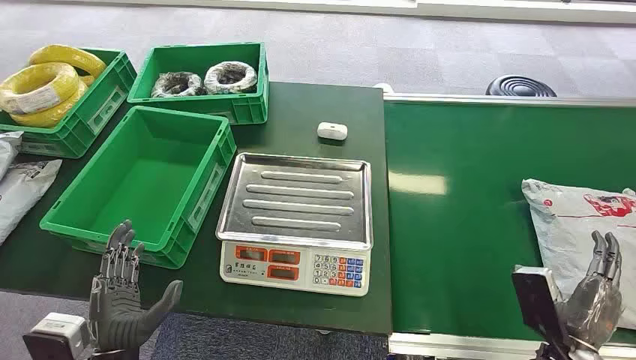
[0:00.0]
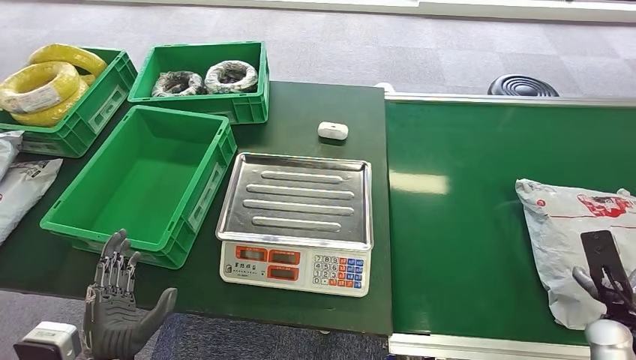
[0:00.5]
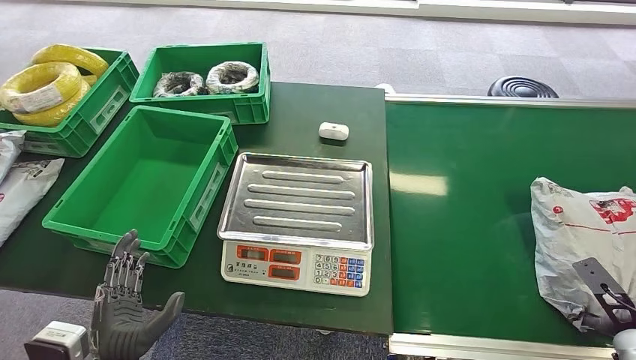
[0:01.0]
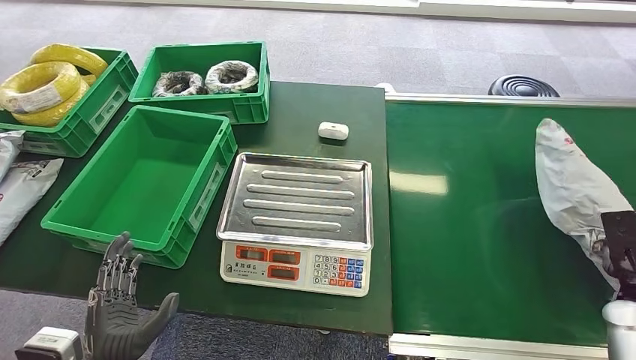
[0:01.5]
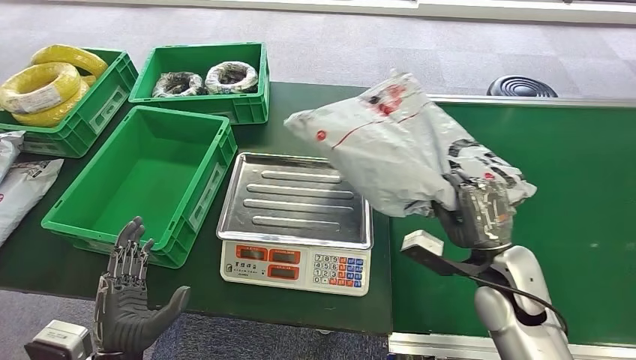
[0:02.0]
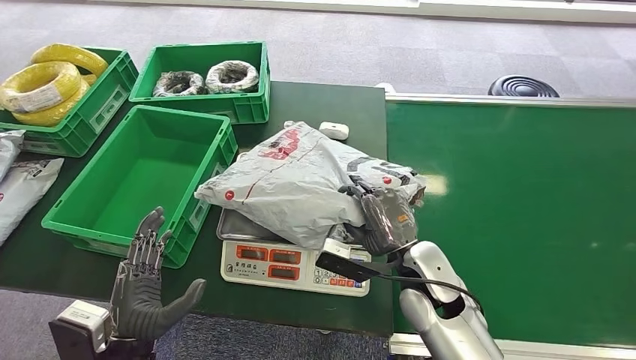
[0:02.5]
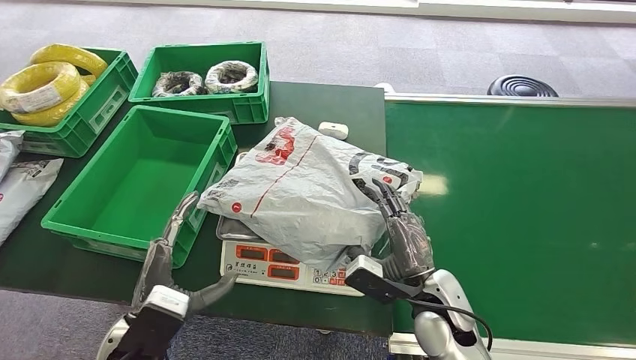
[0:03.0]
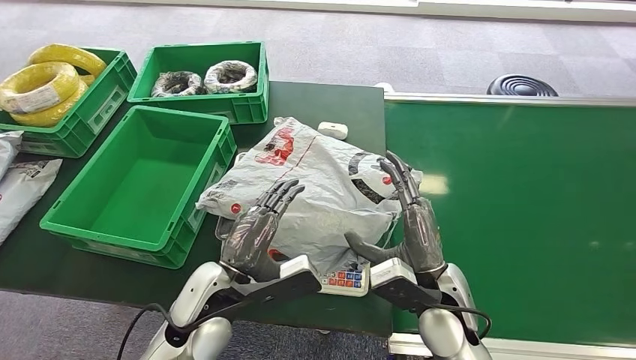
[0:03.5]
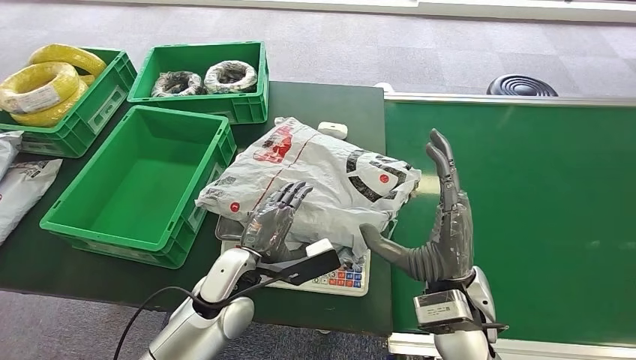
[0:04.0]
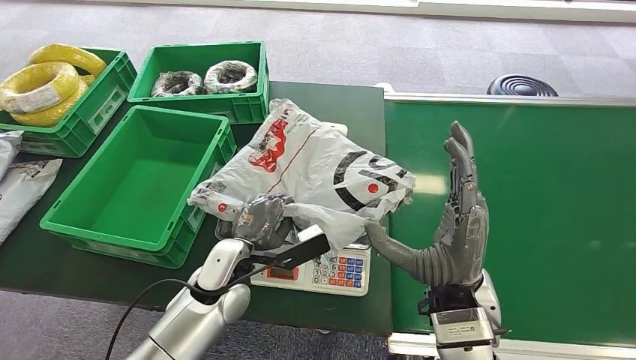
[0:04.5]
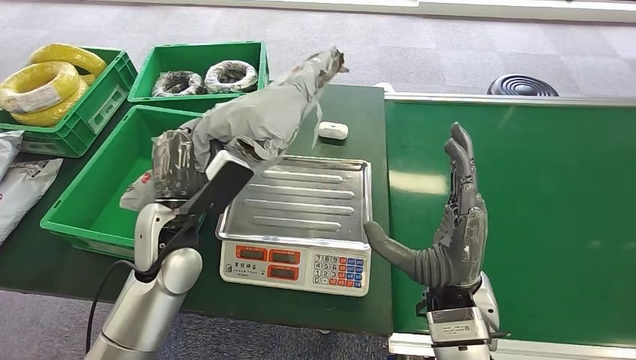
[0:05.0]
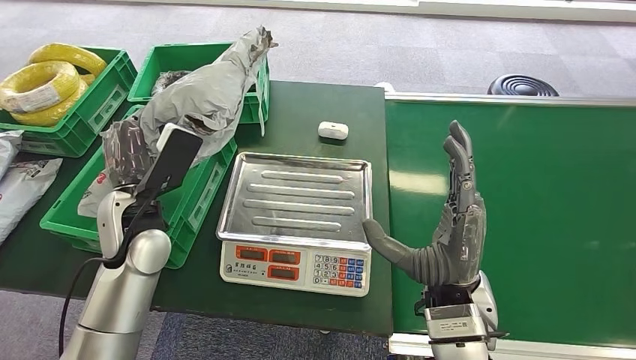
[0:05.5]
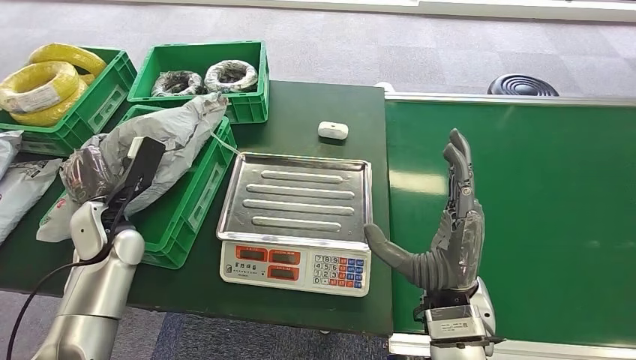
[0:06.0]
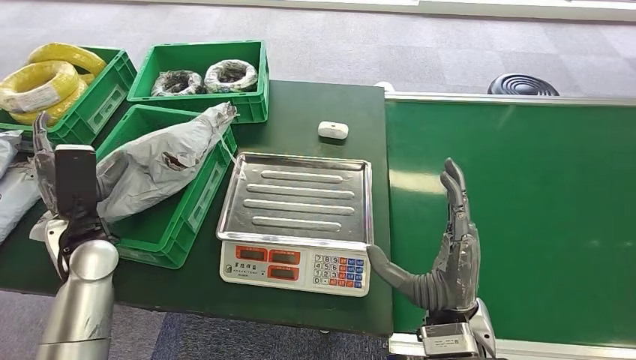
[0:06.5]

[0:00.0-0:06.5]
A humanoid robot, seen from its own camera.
Step, 0:00.0 to 0:01.5: Pick up the package from the conveyor belt.
Step, 0:02.5 to 0:03.0: Place the package onto the inbound machine.
Step, 0:04.0 to 0:05.0: Pick up the package from the inbound machine.
Step, 0:05.5 to 0:06.5: Place the package into the parcel locker.

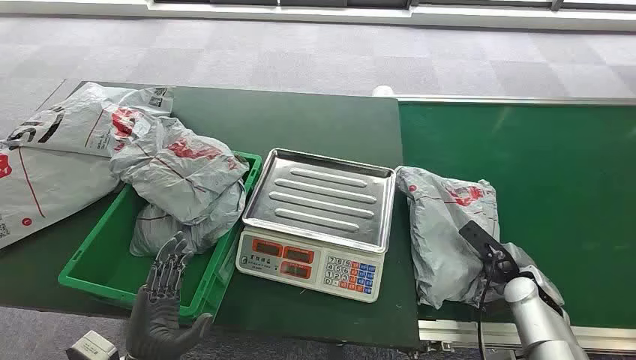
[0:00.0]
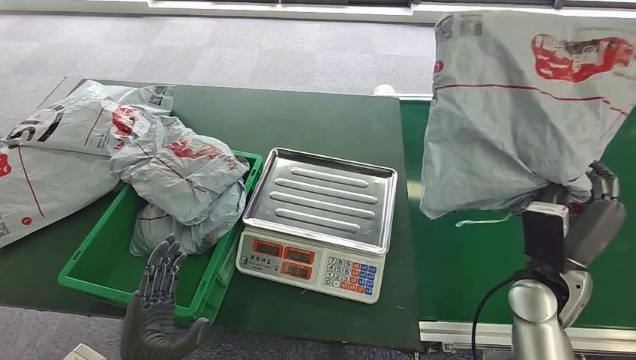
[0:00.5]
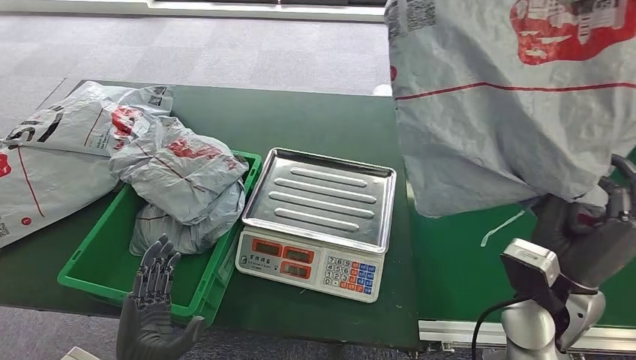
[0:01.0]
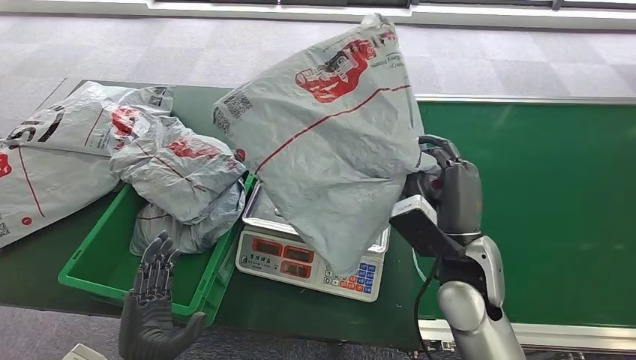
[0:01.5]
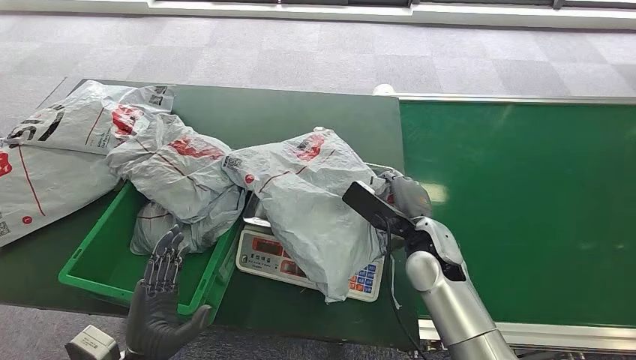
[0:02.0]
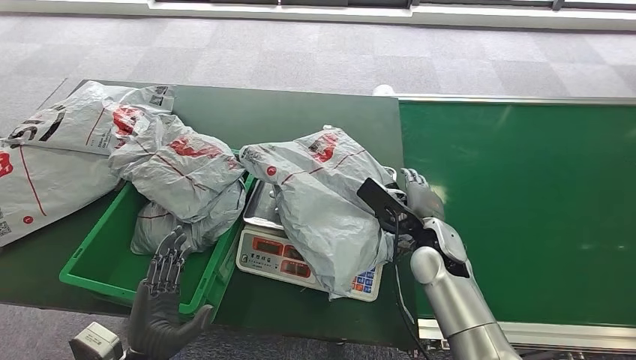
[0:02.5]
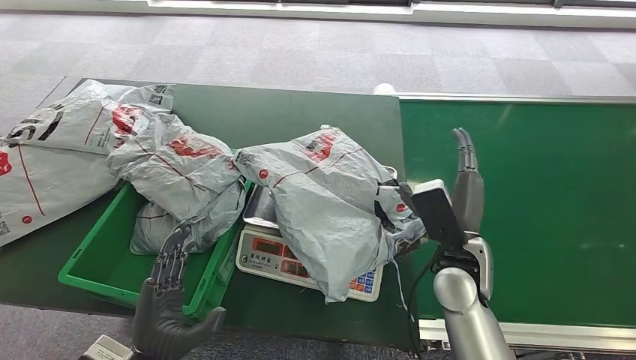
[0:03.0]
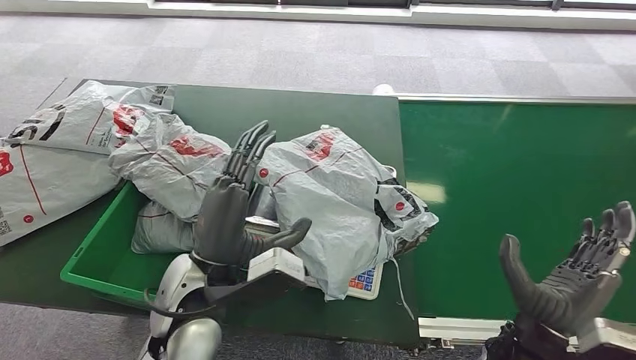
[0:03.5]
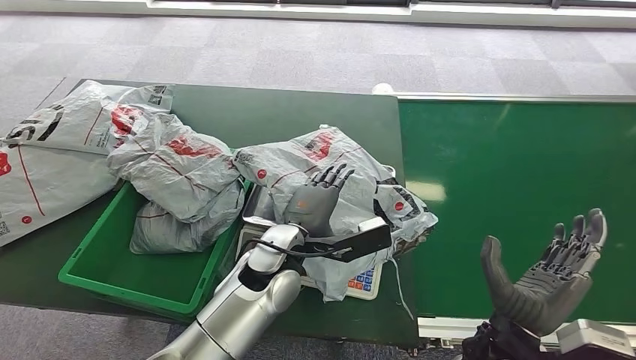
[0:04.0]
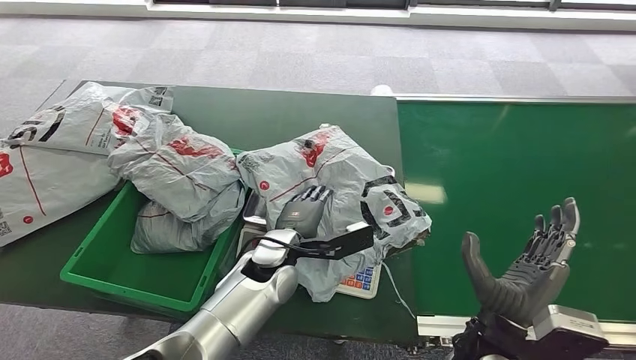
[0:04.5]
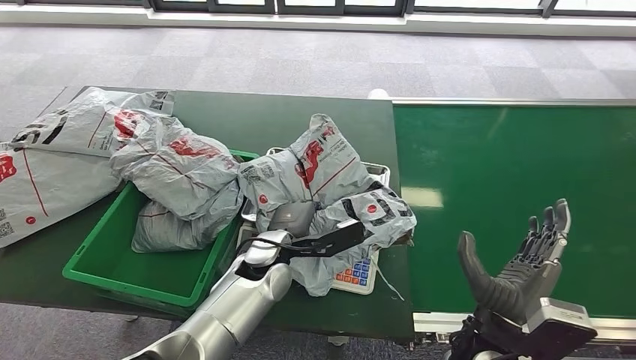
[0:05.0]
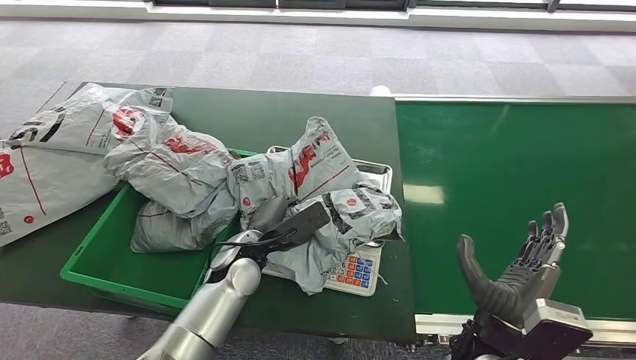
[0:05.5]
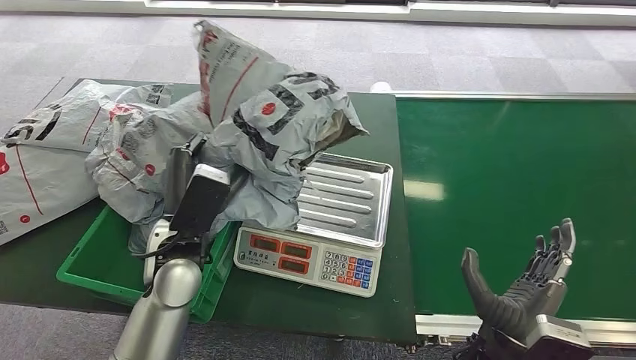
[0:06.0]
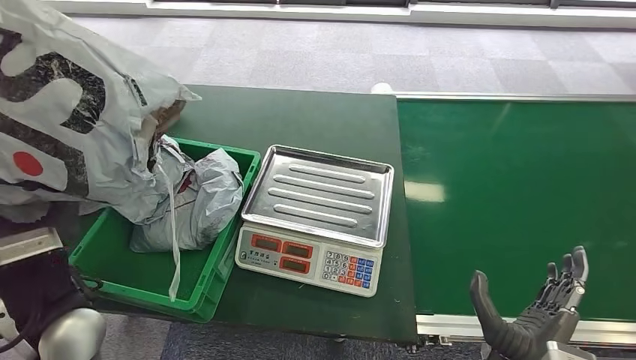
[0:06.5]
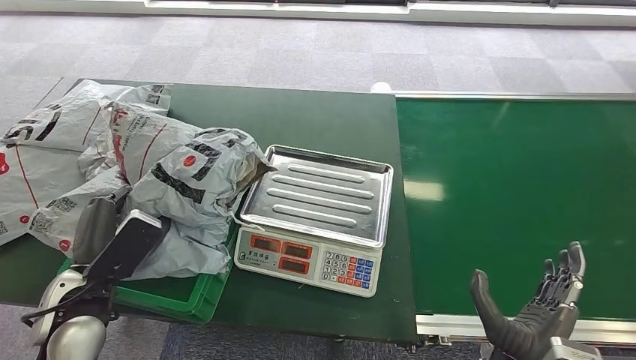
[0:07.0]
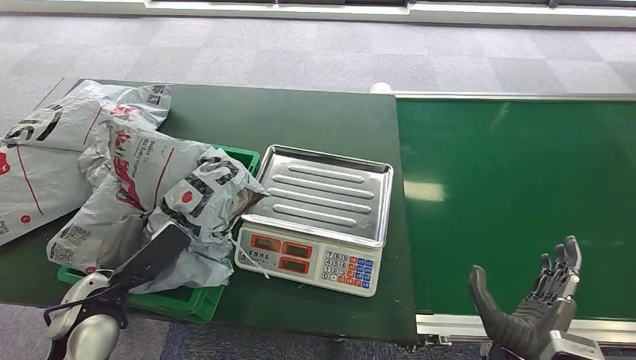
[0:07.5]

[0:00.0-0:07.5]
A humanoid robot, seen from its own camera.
Step, 0:00.0 to 0:00.5: Pick up the package from the conveyor belt.
Step, 0:01.0 to 0:03.0: Place the package onto the inbound machine.
Step, 0:03.5 to 0:05.5: Pick up the package from the inbound machine.
Step, 0:06.5 to 0:07.5: Place the package into the parcel locker.
